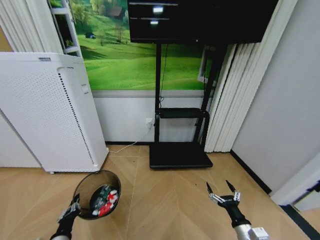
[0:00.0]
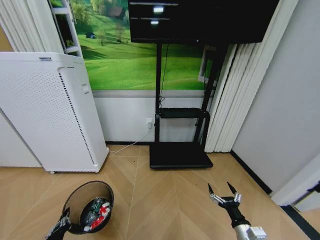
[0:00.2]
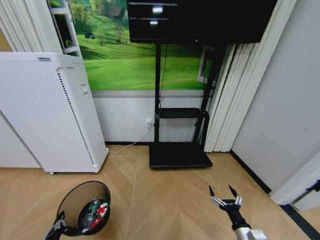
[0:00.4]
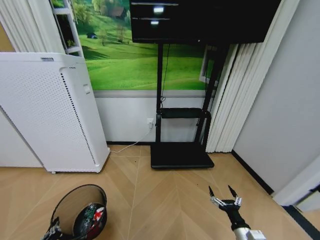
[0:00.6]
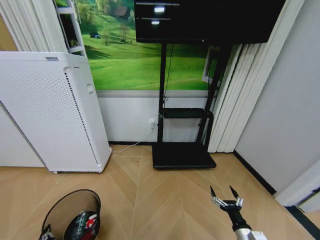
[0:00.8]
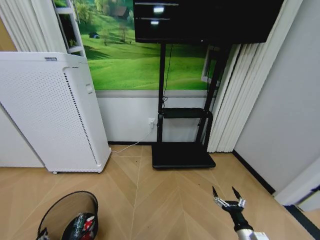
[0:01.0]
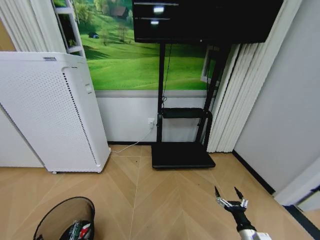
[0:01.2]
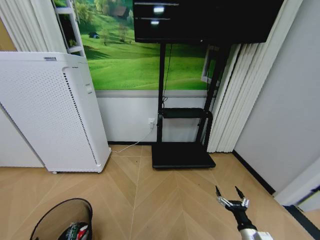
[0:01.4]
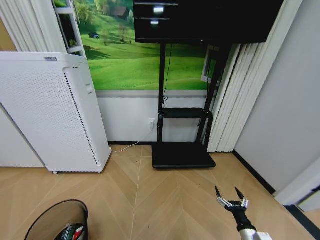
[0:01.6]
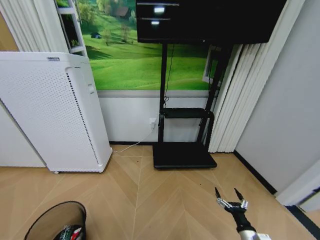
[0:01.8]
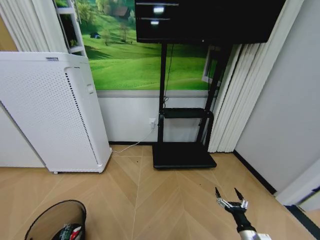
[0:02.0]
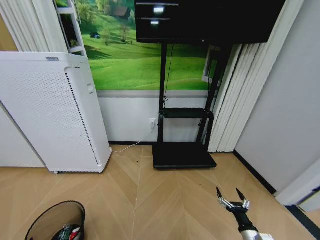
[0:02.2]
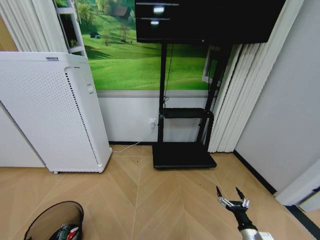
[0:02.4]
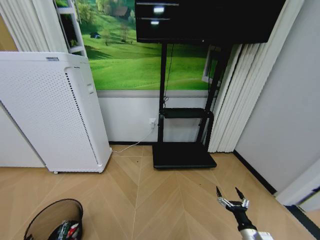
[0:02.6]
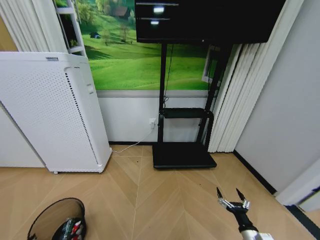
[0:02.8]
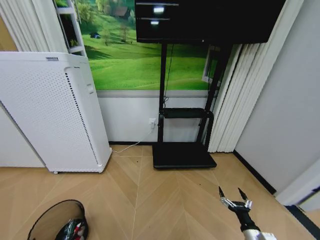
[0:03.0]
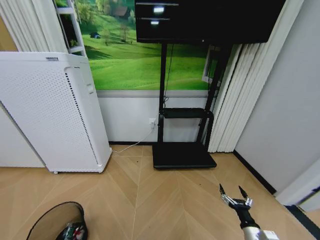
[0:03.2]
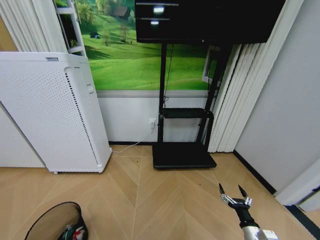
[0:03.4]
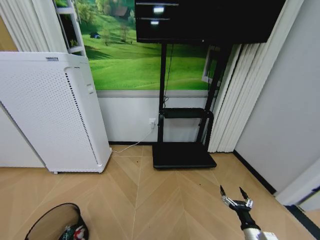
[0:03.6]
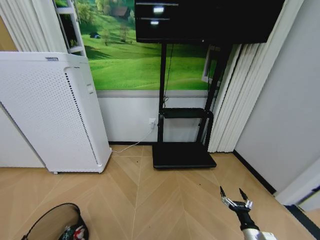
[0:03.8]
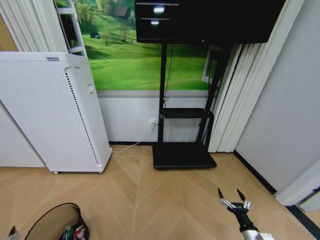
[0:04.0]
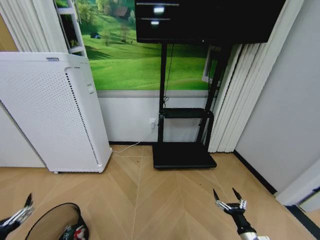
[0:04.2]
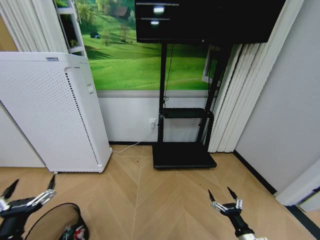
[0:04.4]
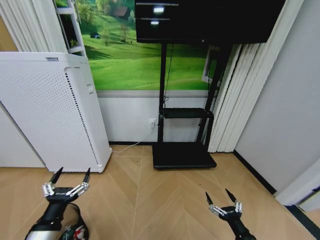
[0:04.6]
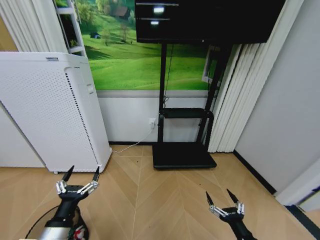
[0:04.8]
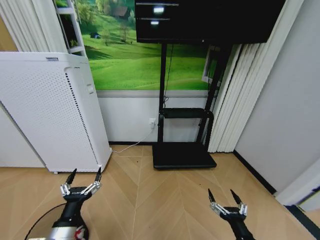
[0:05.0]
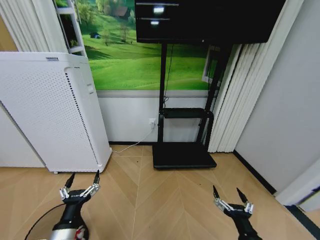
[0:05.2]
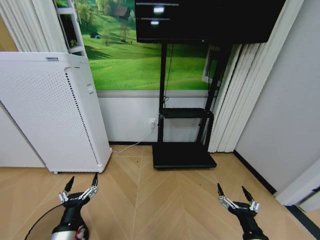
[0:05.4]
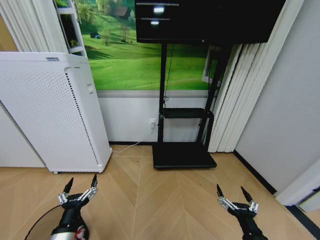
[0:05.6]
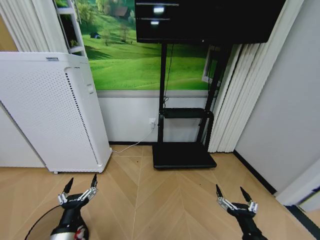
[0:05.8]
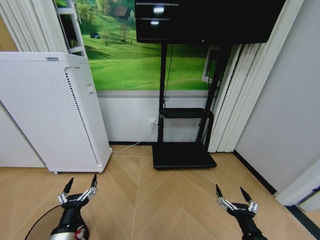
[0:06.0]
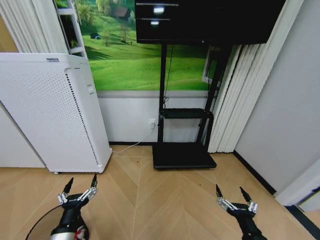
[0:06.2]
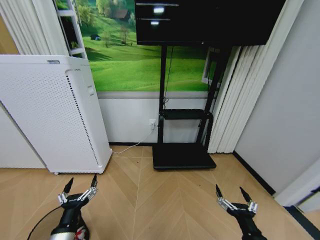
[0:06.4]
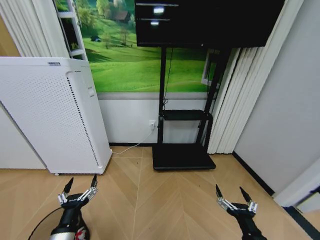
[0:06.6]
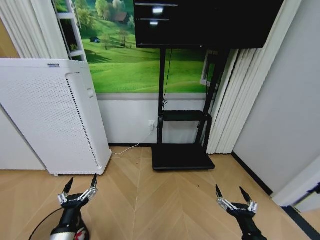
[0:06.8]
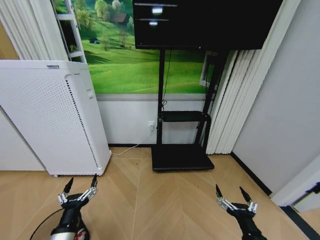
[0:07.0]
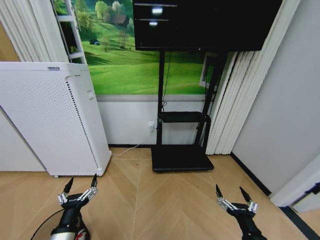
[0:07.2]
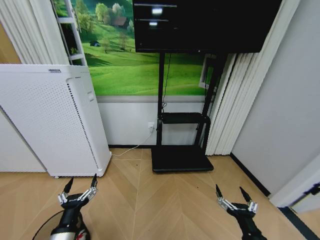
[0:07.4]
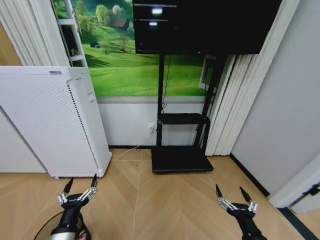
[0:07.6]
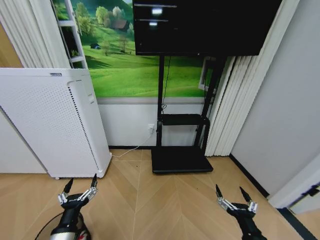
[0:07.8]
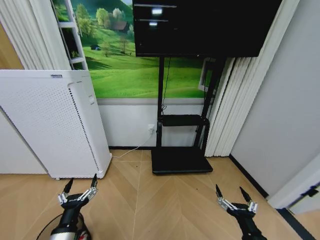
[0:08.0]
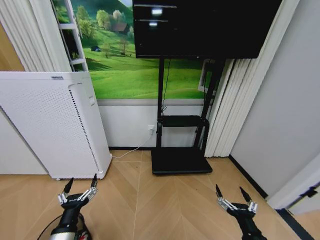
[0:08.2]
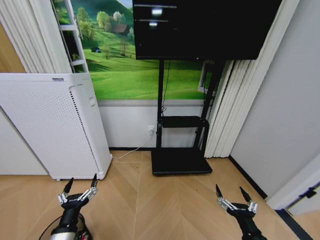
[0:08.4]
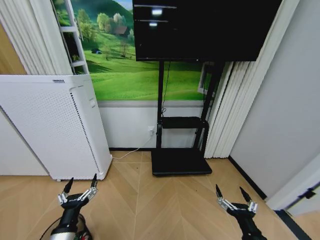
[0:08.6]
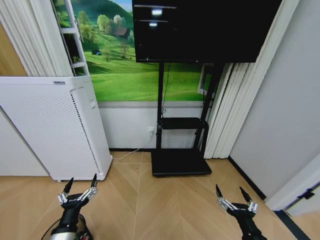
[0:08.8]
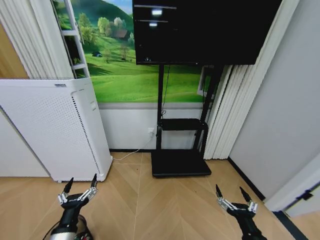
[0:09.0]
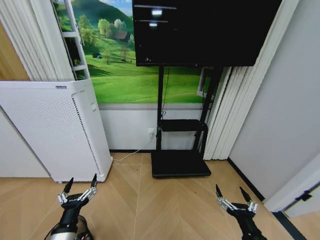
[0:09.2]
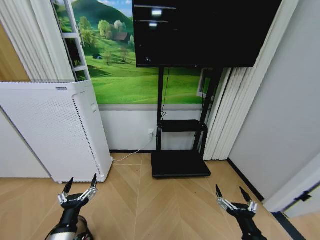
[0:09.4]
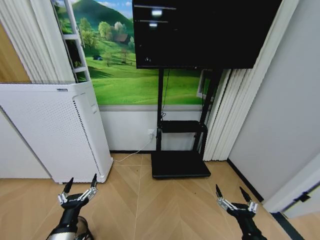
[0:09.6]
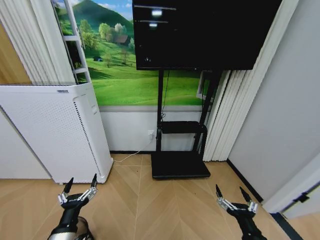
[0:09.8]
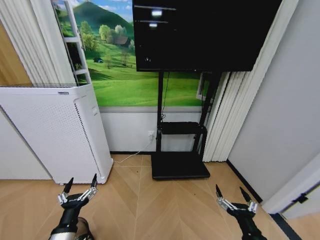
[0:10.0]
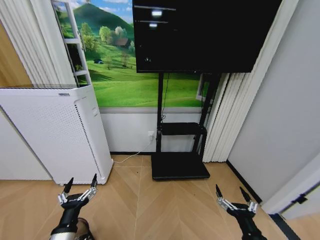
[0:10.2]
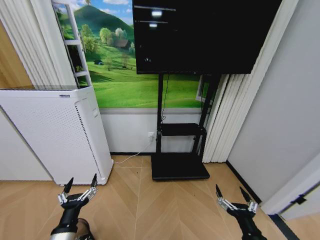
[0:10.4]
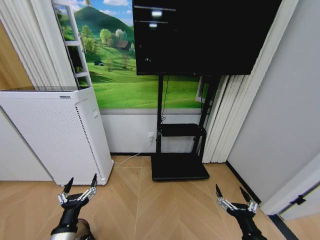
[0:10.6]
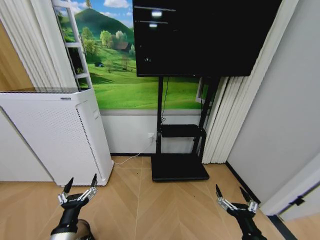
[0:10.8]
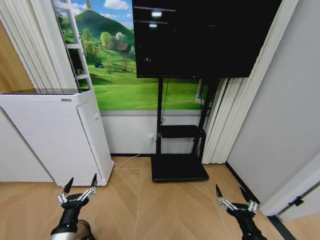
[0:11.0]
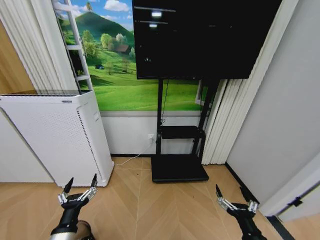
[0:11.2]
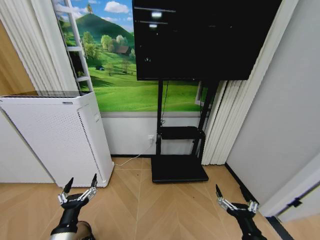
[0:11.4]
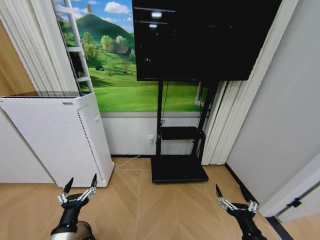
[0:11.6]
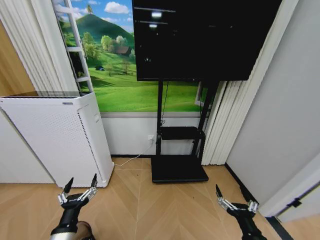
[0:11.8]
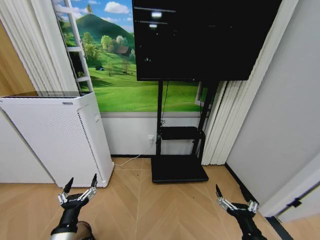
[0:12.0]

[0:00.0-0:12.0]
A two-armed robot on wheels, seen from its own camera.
Task of the whole recording: Pick up the trash bin and place the garbage on the floor into it.
0:00.0 to 0:01.6: The right gripper moves roughly 5 cm, while the left gripper shifts approximately 10 cm backward.
0:01.6 to 0:03.0: The left gripper is displaced downward and to the left by about 10 cm.
0:03.0 to 0:04.4: The left gripper shifts roughly 20 cm upward, and opens up. The right gripper changes place by approximately 5 cm.
0:04.4 to 0:06.0: The right gripper travels upward and to the left by roughly 10 cm; the left gripper travels to the right and downward by some 10 cm.
0:07.6 to 0:12.0: Both grippers stay put.

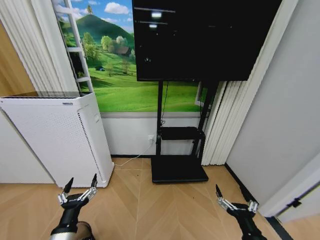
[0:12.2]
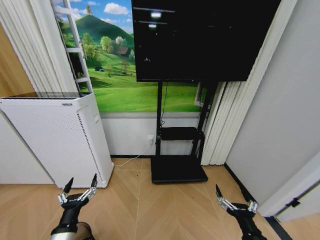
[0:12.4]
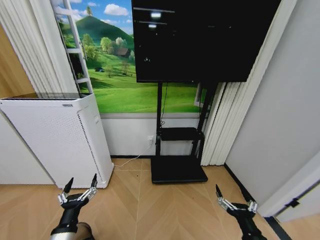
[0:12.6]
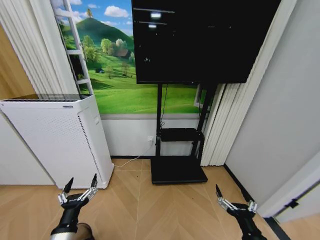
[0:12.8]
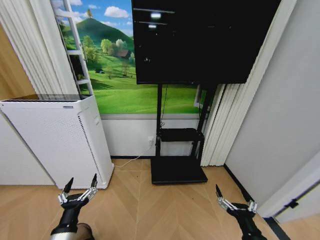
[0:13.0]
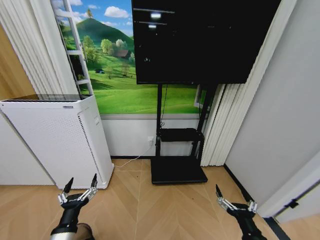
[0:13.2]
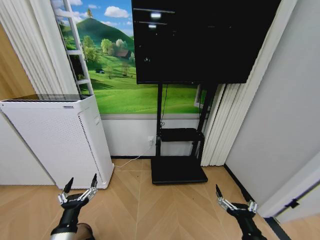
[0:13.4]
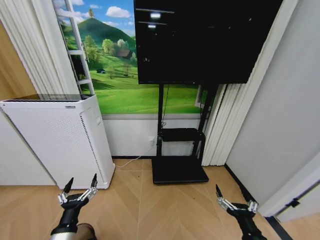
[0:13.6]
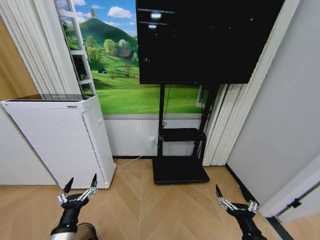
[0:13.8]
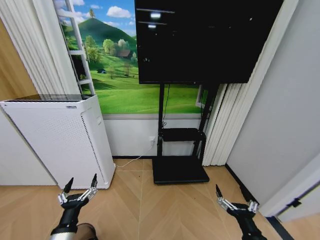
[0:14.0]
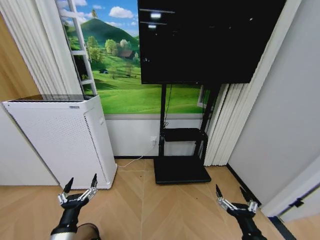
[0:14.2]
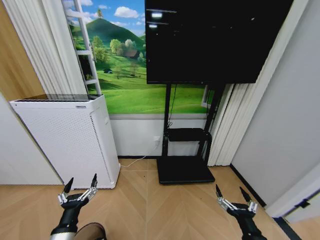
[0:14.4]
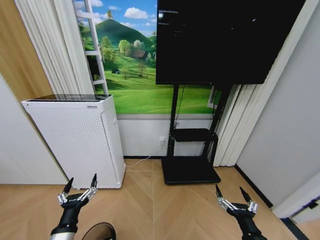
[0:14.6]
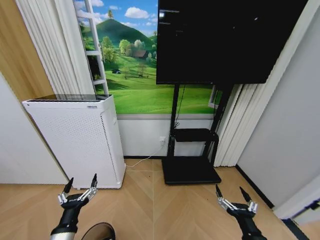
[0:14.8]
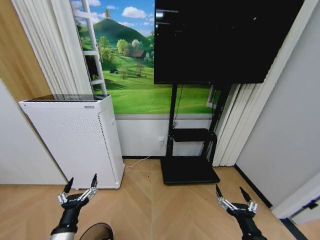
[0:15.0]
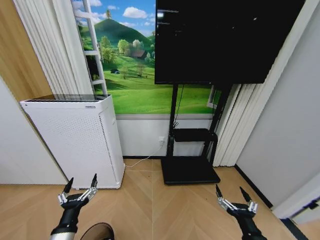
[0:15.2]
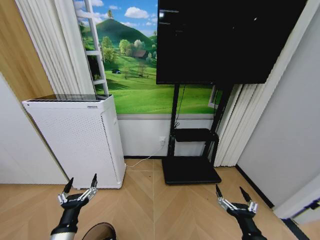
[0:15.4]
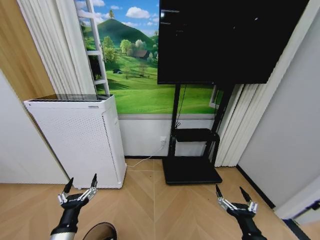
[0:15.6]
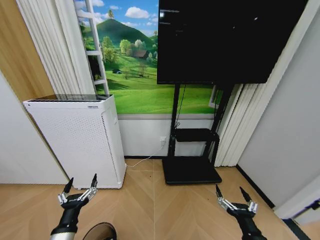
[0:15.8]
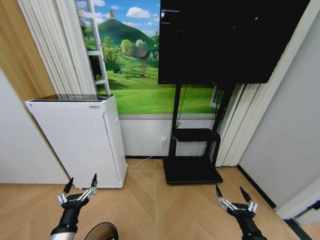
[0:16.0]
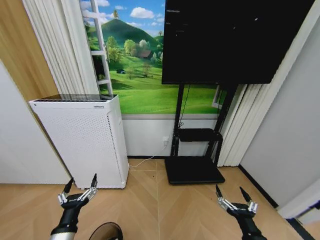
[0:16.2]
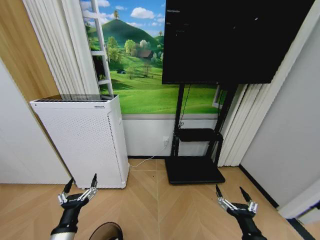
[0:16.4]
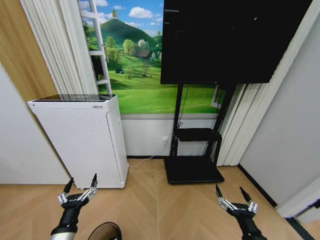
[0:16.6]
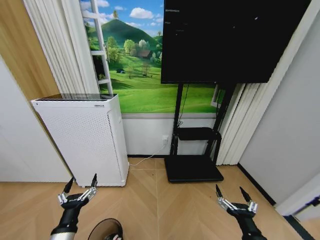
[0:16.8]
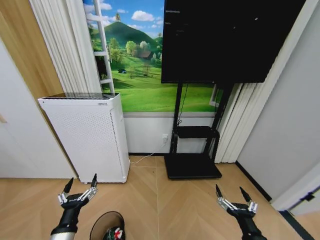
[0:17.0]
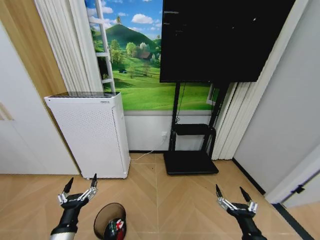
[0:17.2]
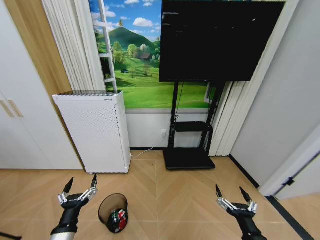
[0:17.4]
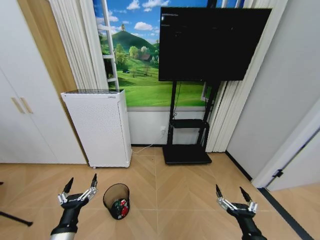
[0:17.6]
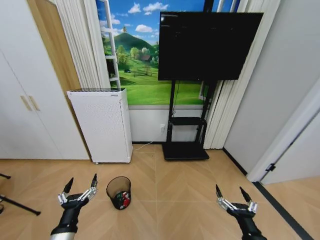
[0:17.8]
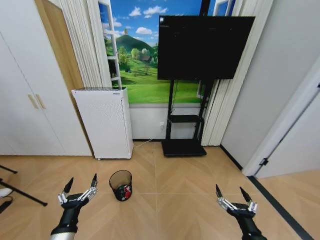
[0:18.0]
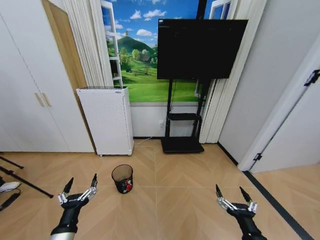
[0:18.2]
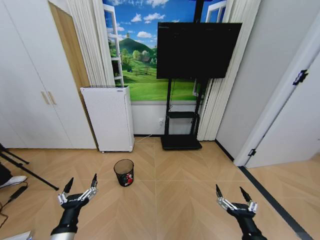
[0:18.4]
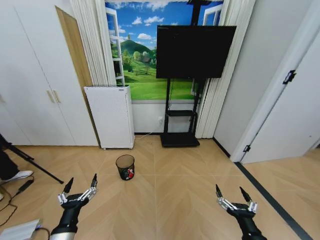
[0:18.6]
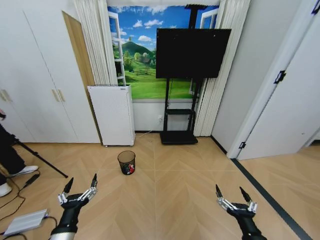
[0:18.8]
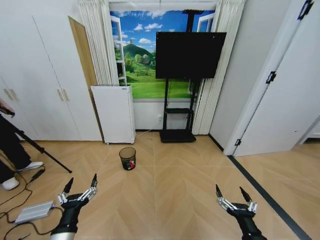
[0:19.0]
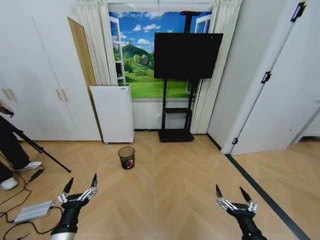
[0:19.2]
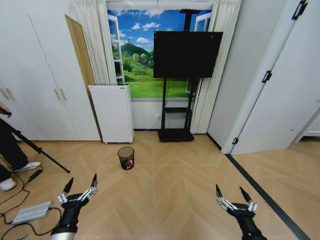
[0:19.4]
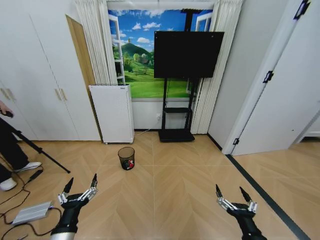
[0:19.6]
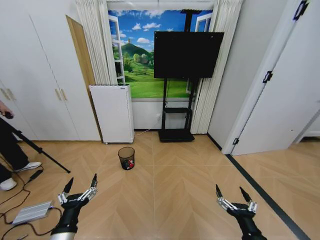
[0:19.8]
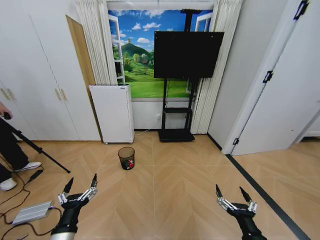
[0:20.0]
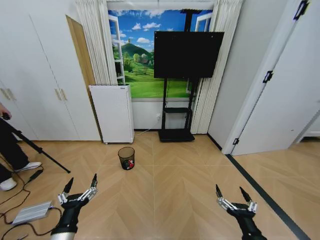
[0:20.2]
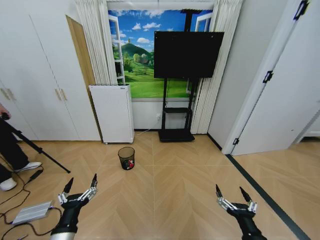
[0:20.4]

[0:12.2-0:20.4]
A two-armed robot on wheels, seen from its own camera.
Task of the whole recording: Pick up the trash bin and place the garbage on the floor into it.
0:12.2 to 0:13.8: Both grippers stay about where they are.
0:18.8 to 0:20.4: Both grippers stay about where they are.
